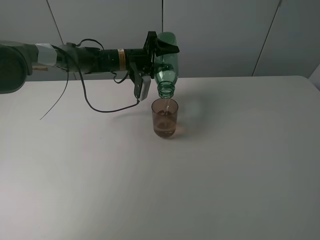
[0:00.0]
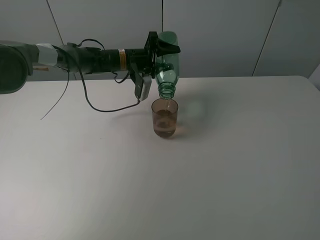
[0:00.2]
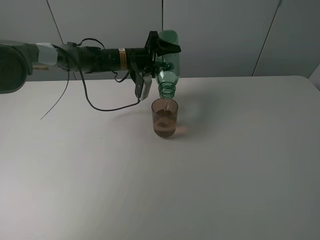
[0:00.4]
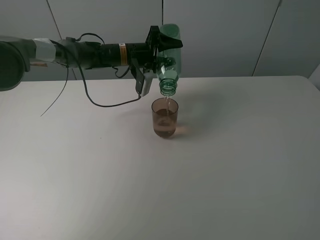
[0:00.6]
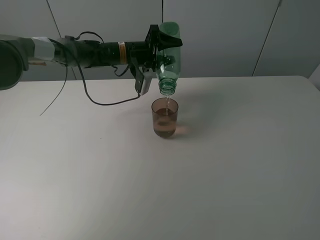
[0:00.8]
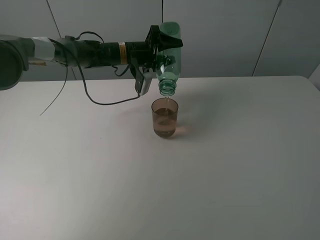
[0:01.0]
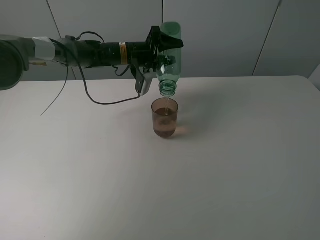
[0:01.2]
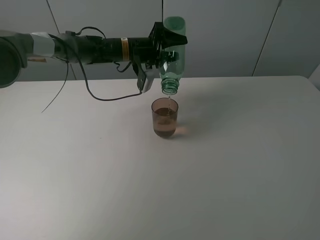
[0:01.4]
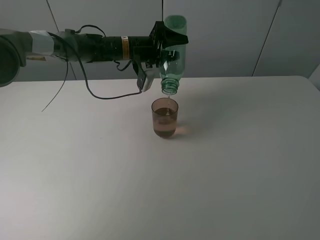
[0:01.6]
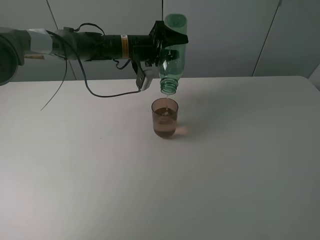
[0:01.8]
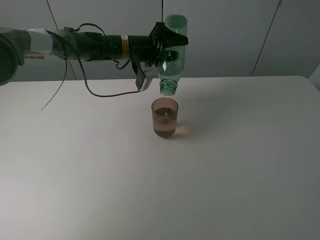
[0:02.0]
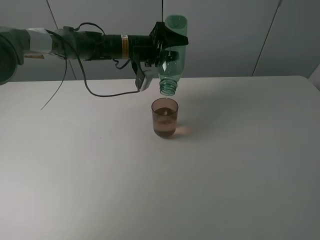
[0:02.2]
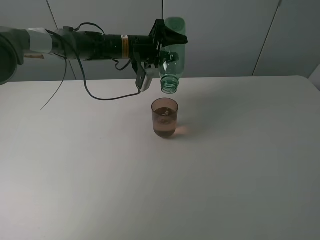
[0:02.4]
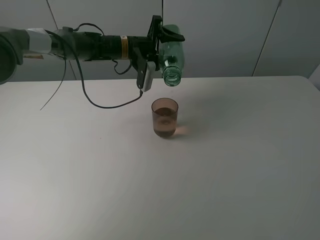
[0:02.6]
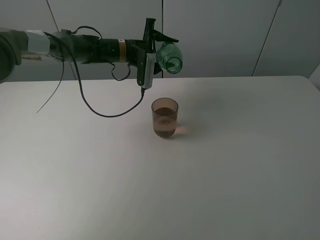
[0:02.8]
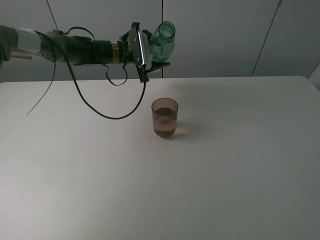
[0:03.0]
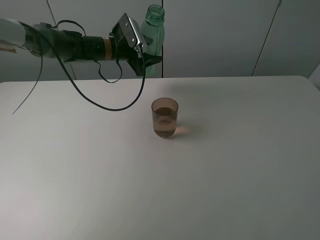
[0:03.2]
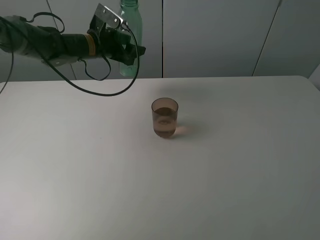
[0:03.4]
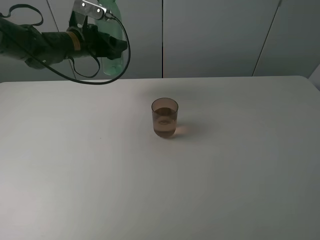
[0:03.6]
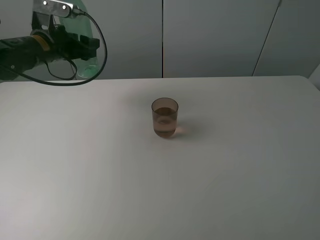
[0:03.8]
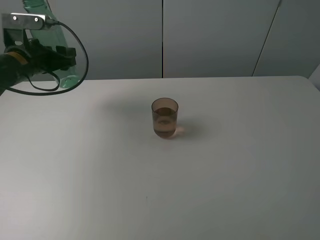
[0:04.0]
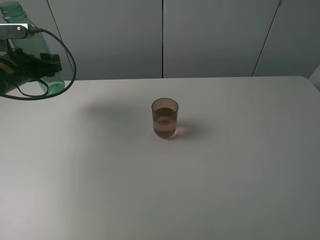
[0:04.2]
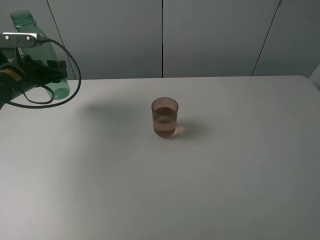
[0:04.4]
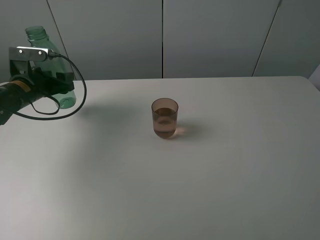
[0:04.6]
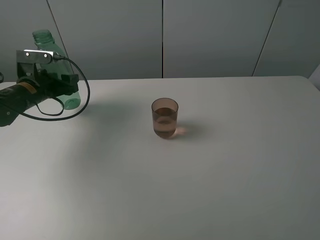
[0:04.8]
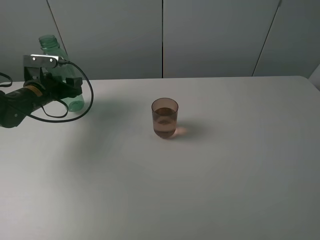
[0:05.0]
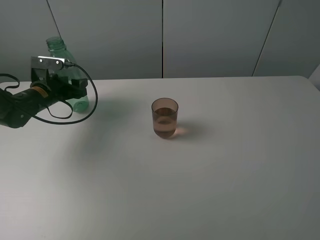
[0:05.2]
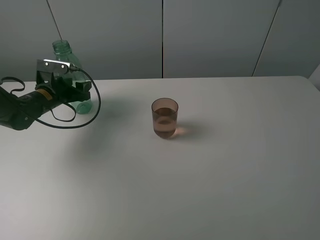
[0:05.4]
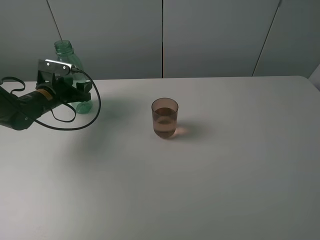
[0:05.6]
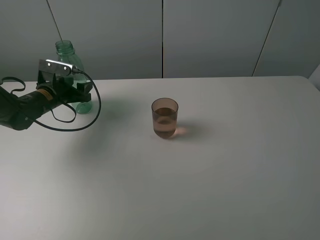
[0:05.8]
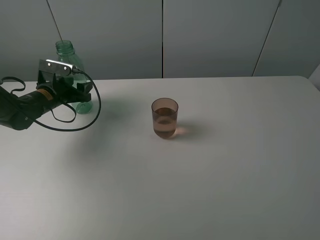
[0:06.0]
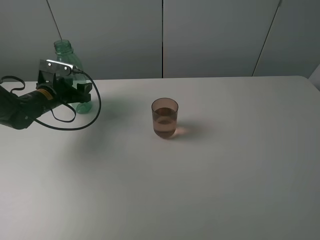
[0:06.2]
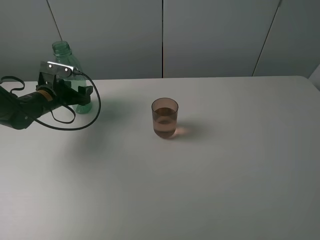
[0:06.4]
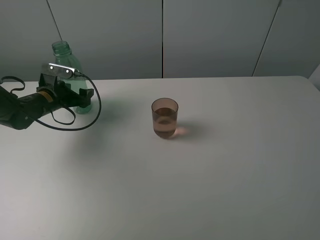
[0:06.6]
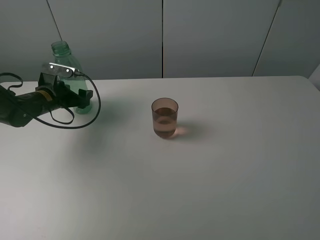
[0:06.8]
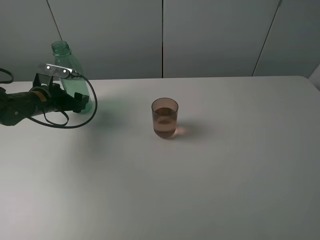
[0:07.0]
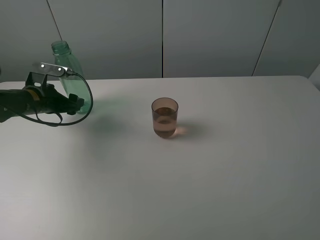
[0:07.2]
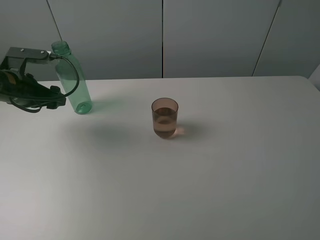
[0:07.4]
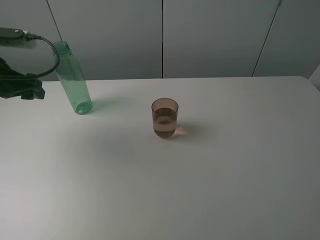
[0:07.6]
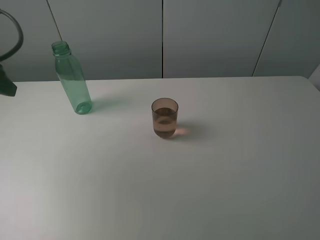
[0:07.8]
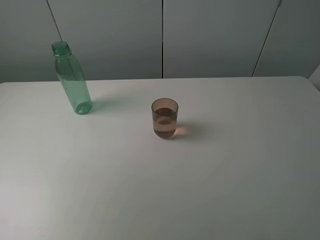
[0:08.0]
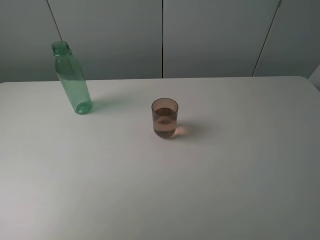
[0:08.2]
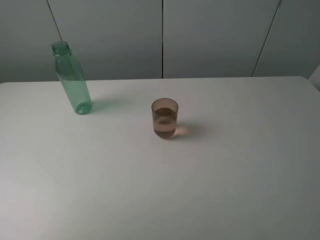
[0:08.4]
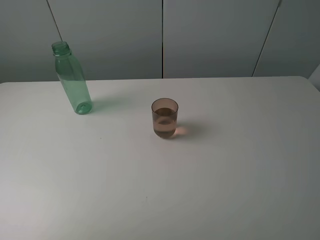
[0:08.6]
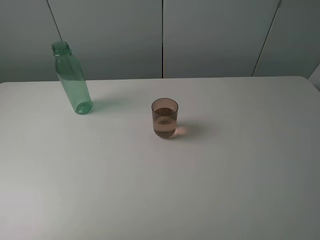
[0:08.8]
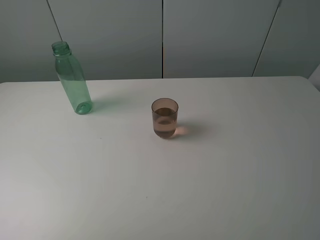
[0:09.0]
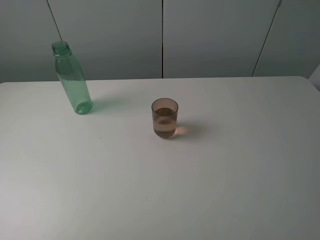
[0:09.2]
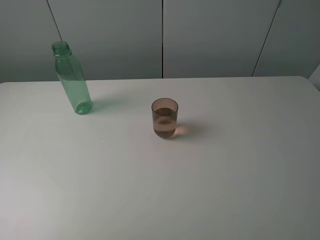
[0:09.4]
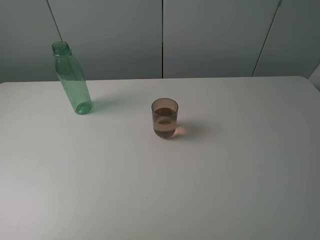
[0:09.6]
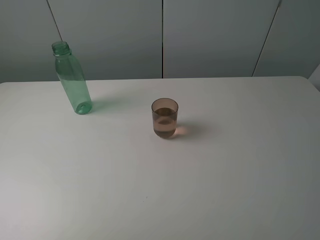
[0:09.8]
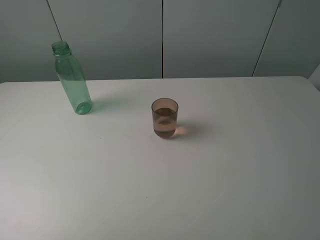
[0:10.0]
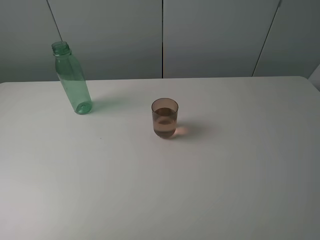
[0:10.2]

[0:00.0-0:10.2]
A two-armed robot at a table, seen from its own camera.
Task of the whole recording: pick up the bottle filled with water and pour it into the pink cup.
Step, 0:00.0 to 0:02.4: Pour water from green bottle to pink cup with the left gripper.
Step, 0:02.6 to 0:07.0: Place the green bottle with the left gripper.
0:00.0 to 0:01.4: There are only small adjustments of the grippers.
0:03.0 to 0:04.4: The left gripper shifts some 25 cm to the left and backward.
0:04.4 to 0:05.8: The left gripper moves downward, about 5 cm.
0:05.8 to 0:07.2: The left gripper ends up roughly 5 cm from where it was, and opens.
0:07.2 to 0:08.8: The left gripper travels backward and upward by approximately 40 cm.
